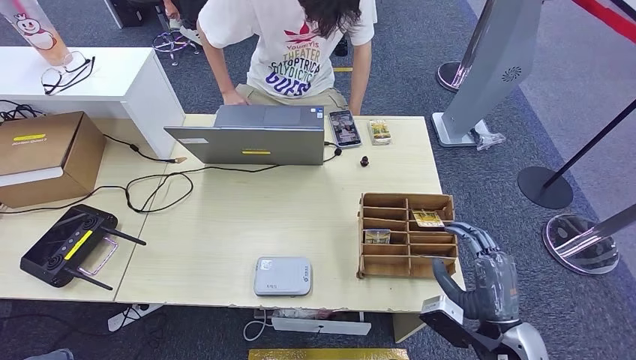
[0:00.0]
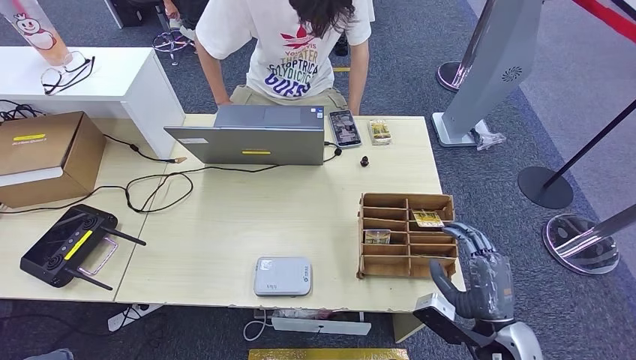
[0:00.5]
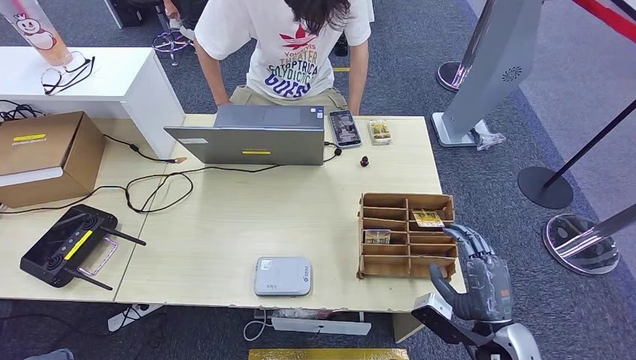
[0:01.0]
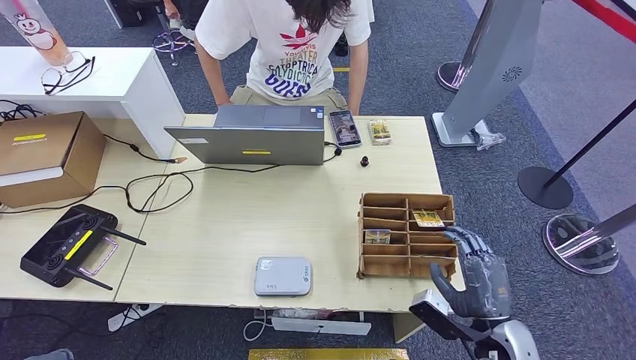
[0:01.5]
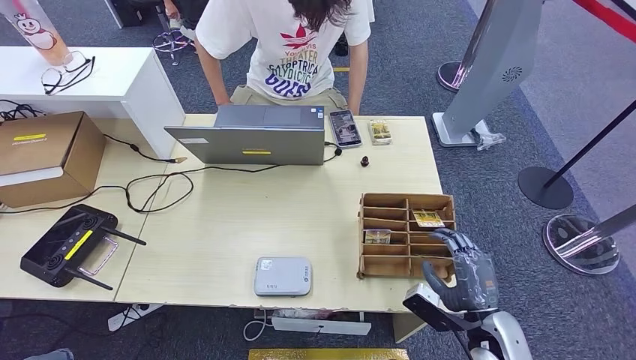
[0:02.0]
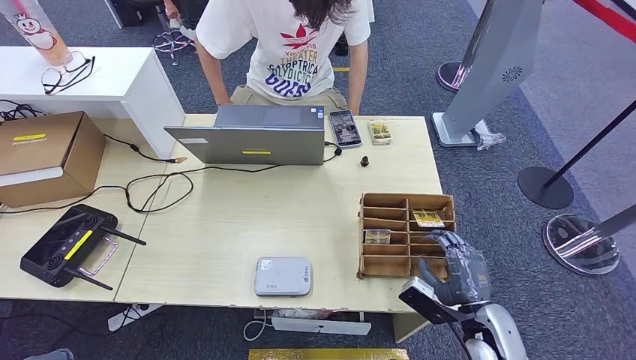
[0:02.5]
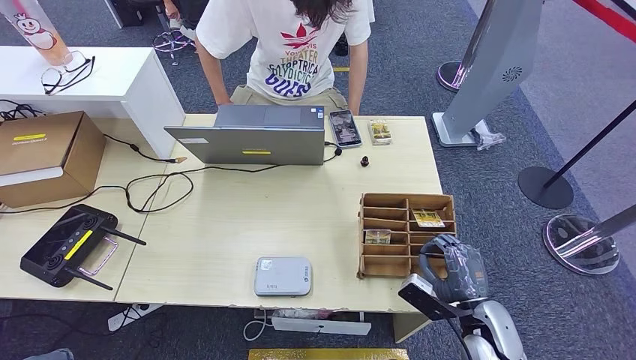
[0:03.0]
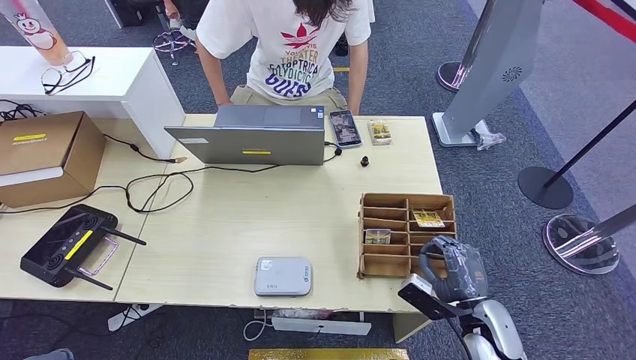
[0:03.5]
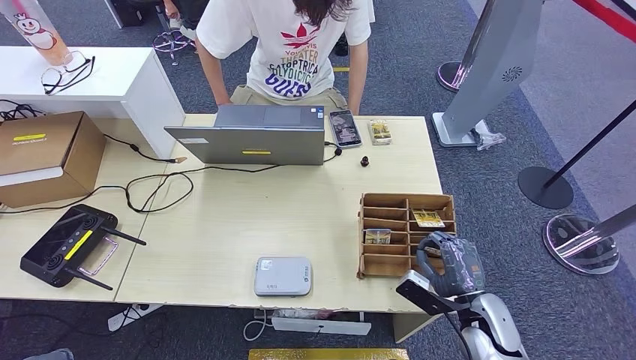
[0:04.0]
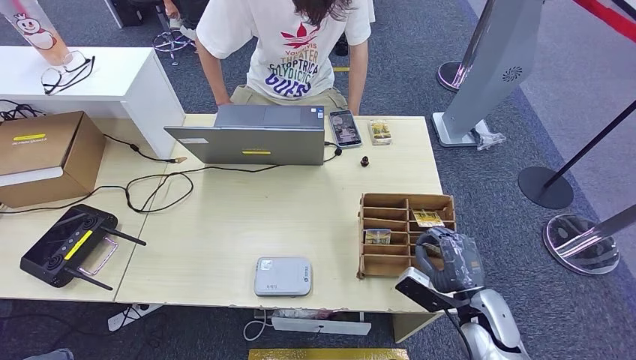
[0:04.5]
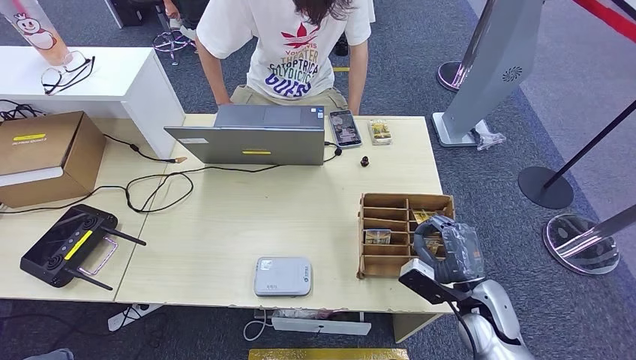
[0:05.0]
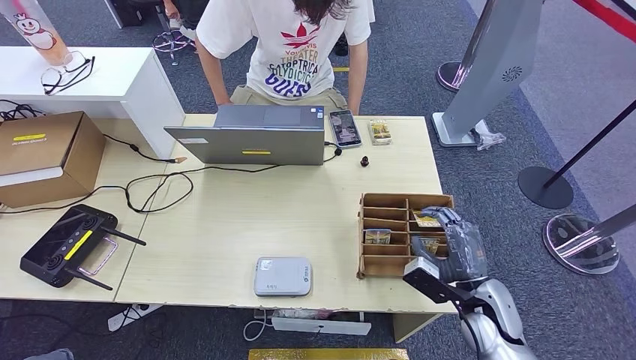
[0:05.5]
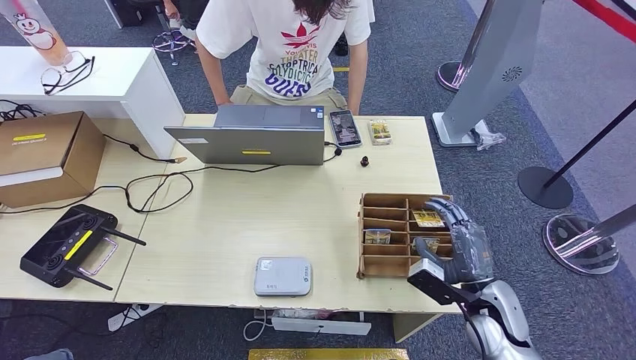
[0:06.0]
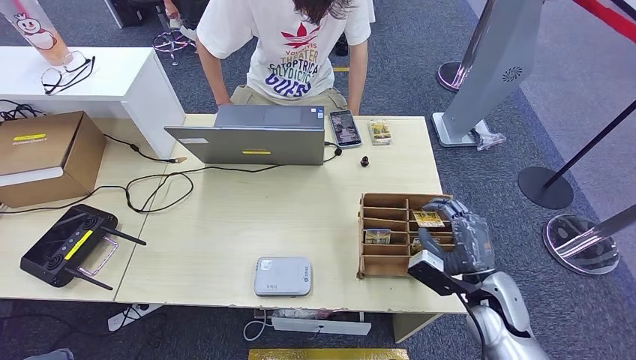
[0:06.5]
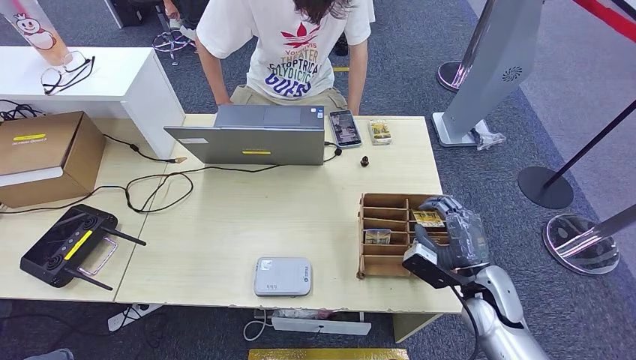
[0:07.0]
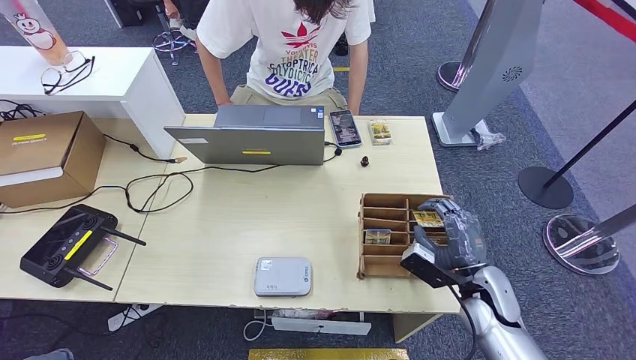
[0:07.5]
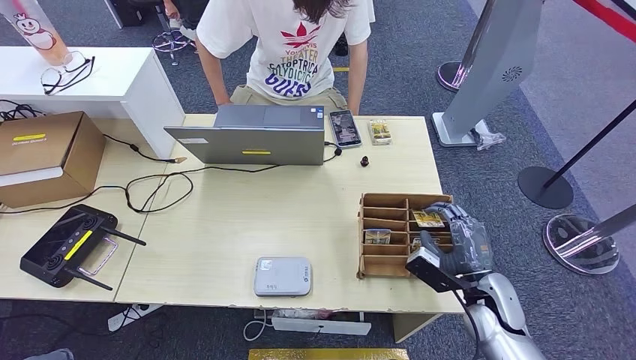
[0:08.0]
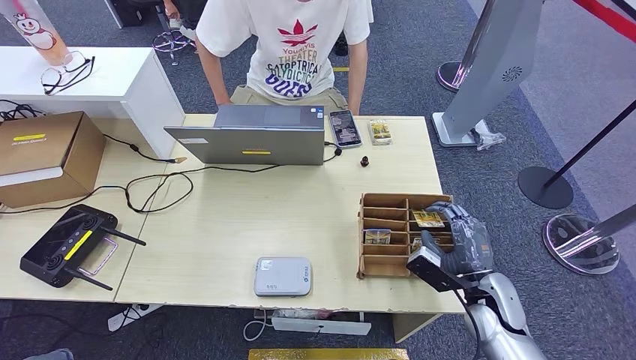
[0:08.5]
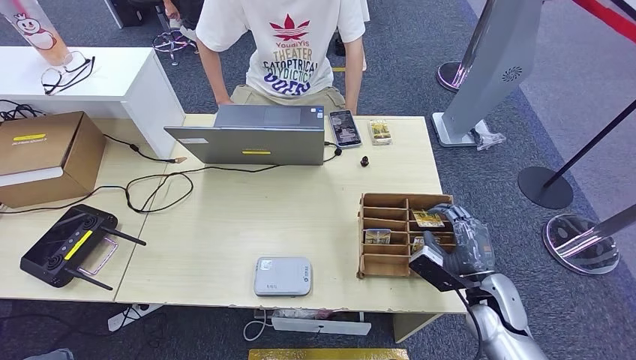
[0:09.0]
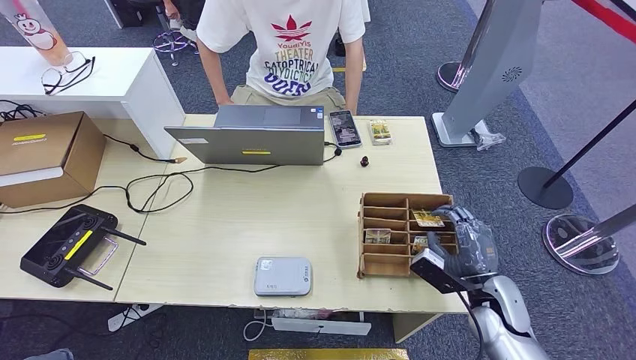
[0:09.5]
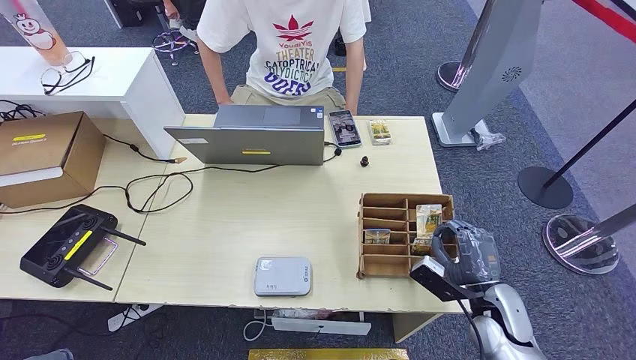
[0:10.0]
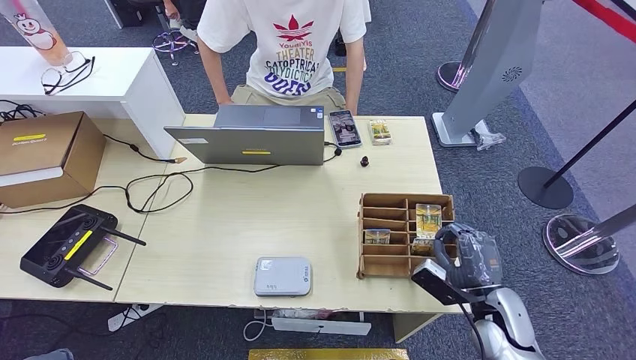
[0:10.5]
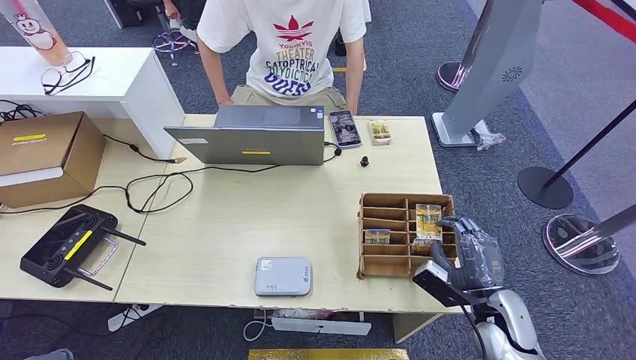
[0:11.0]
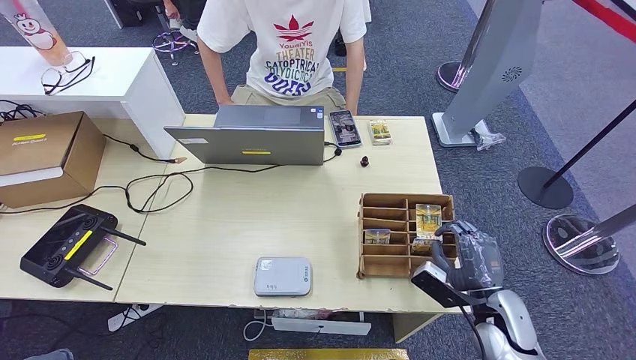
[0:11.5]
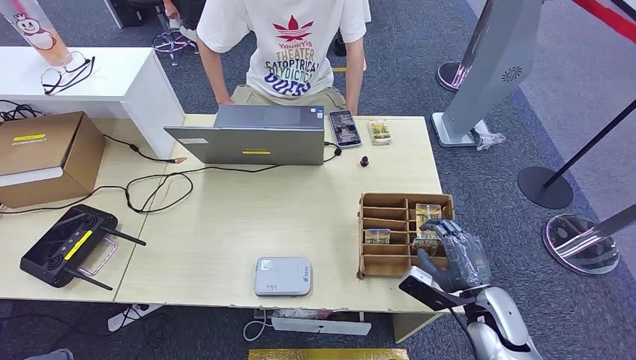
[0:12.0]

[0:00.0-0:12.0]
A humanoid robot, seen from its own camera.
0:00.0 to 0:02.0: The hands stay close to where they were, moving slightly.
0:02.0 to 0:06.0: The hands stay close to where they were, moving slightly.
0:06.0 to 0:12.0: There are only small adjustments of the hands.

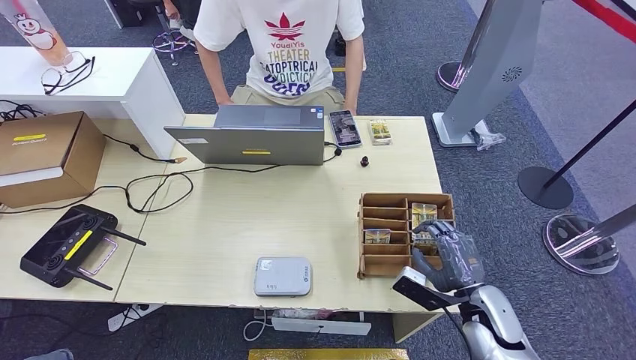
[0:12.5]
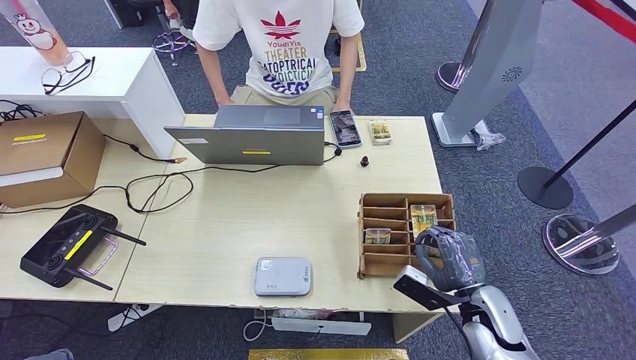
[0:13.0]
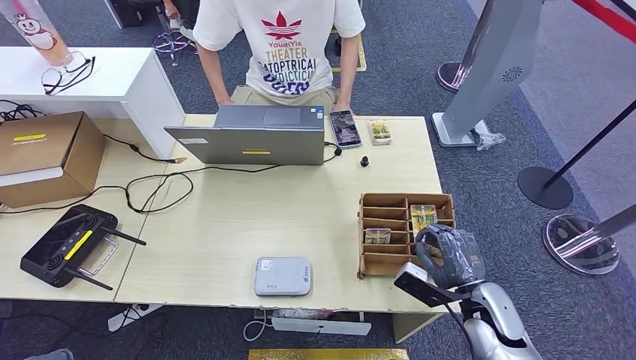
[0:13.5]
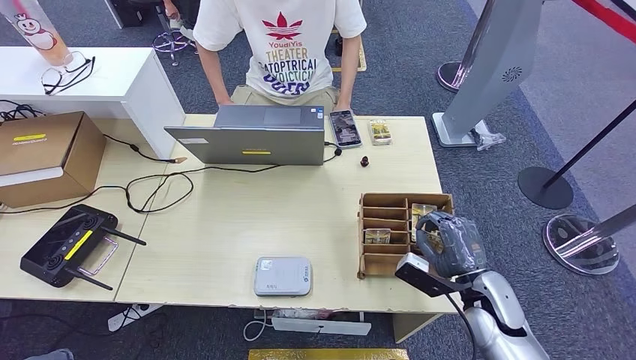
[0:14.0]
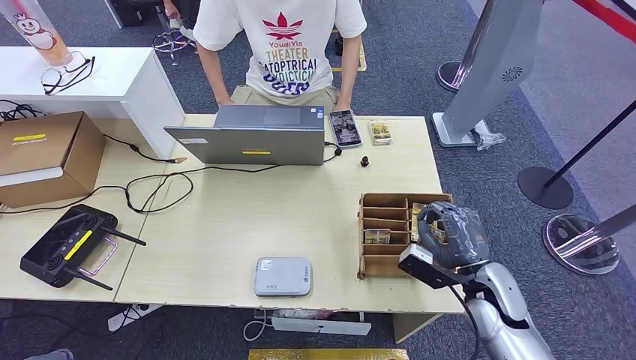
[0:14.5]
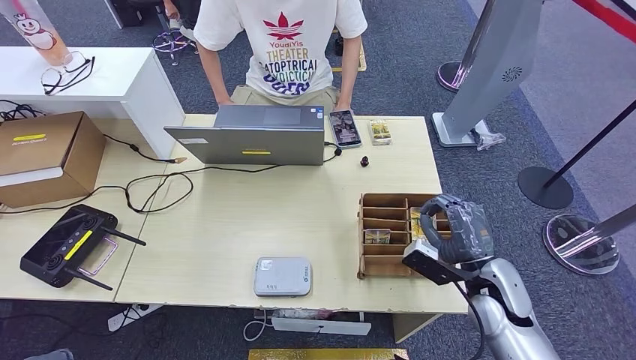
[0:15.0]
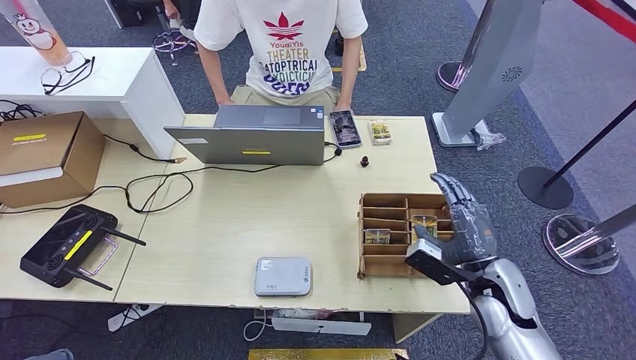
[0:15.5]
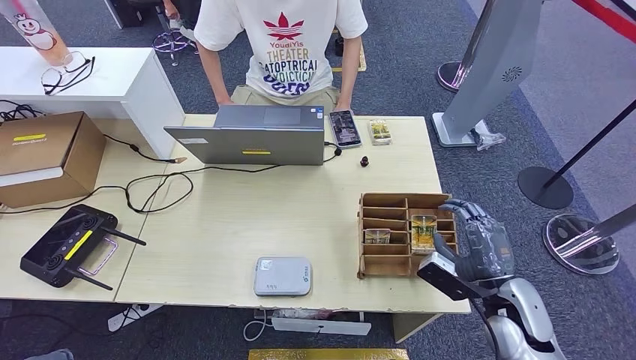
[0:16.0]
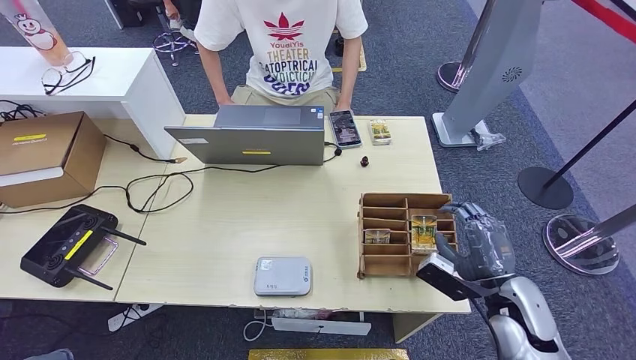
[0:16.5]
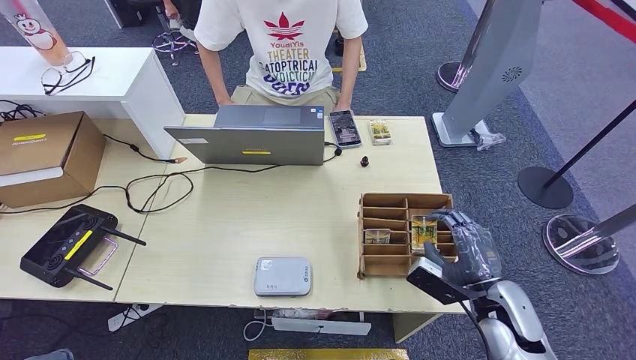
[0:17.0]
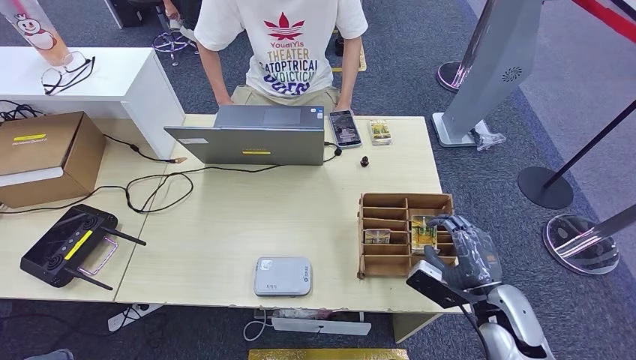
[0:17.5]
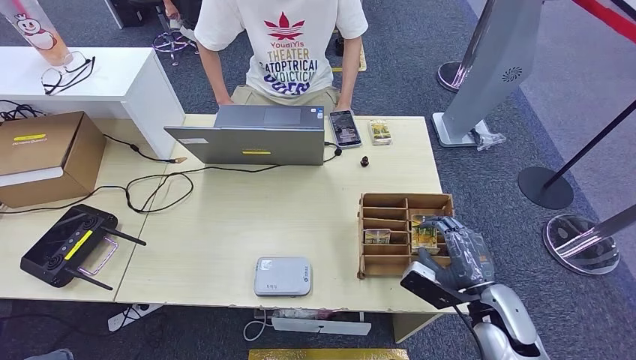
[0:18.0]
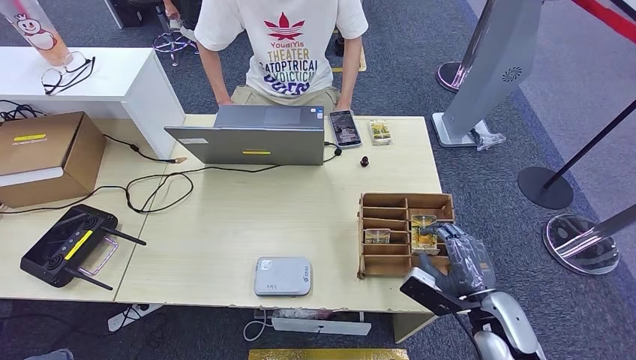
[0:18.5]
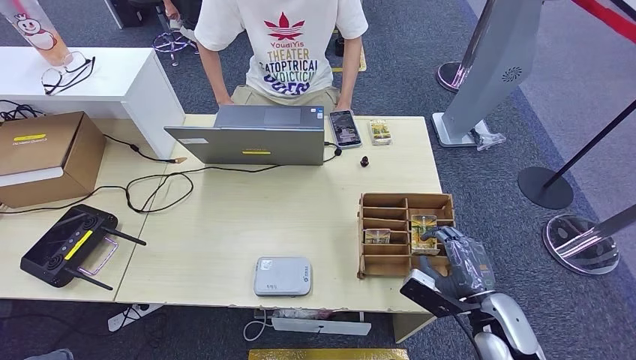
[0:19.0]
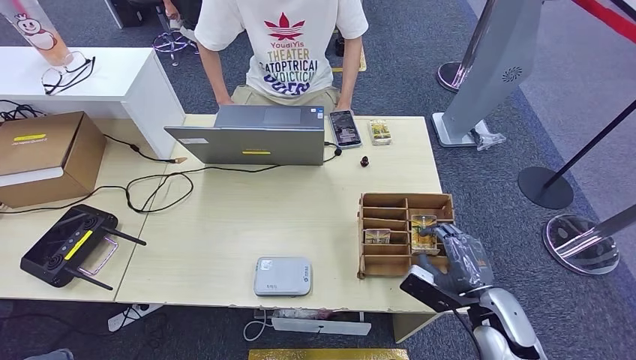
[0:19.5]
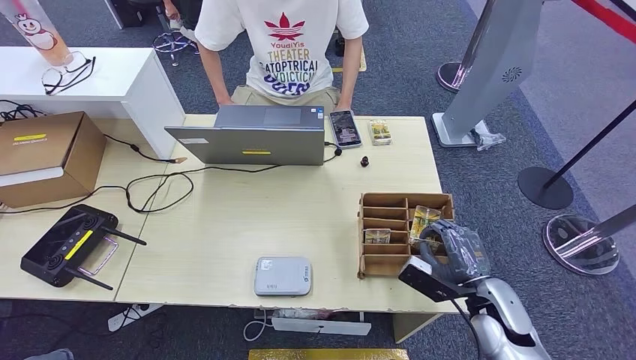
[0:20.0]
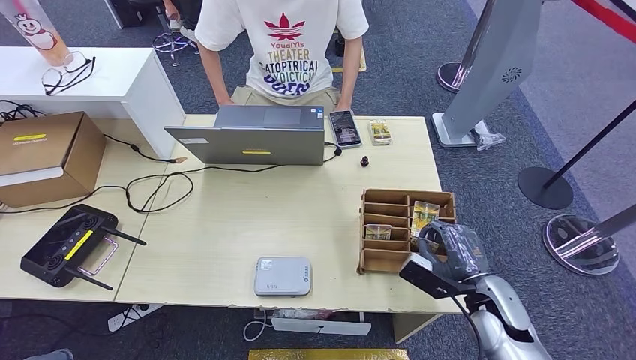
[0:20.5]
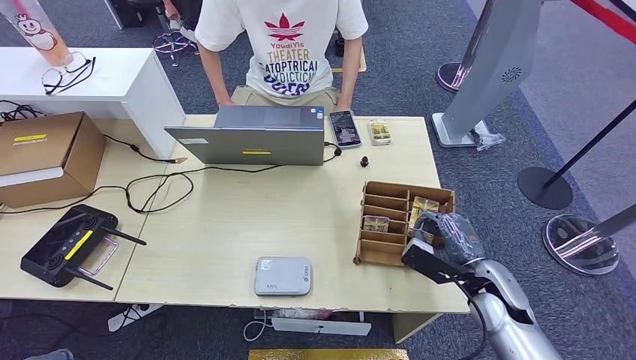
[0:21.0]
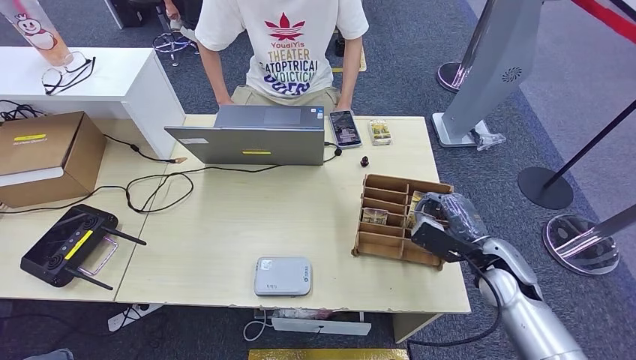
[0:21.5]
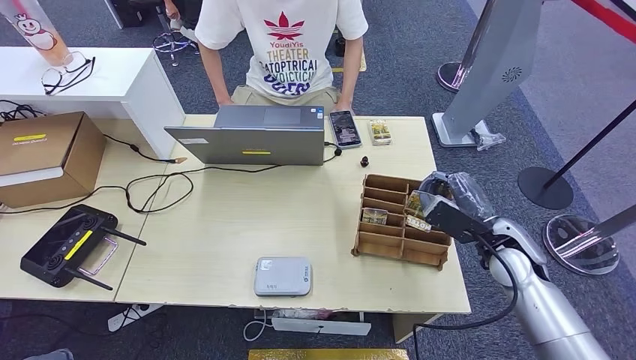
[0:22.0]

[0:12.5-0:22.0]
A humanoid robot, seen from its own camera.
0:12.5 to 0:14.5: The hands make only small movements.
0:14.5 to 0:20.0: There are only small adjustments of the hands.
0:20.0 to 0:22.0: The right hand moves forward and upward, about 10 cm.
